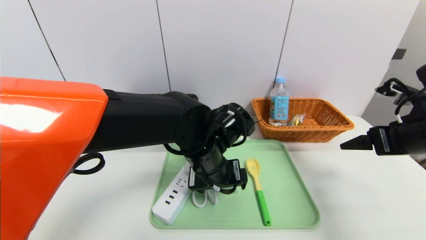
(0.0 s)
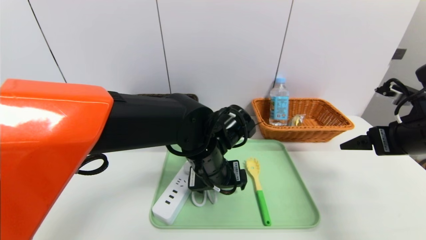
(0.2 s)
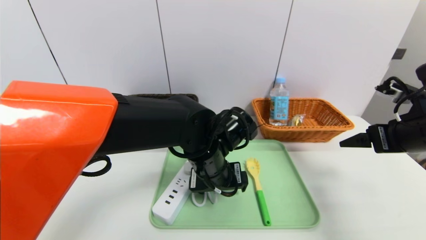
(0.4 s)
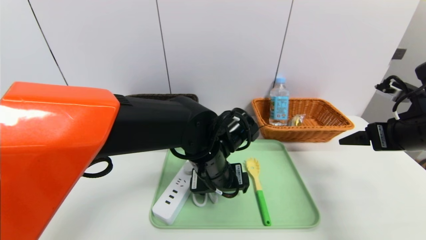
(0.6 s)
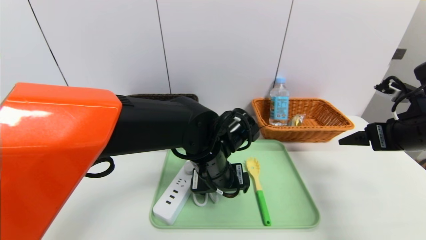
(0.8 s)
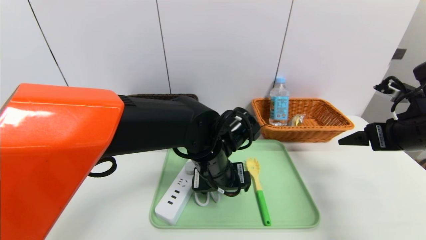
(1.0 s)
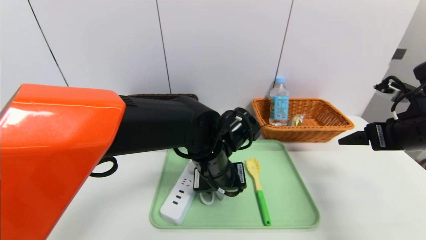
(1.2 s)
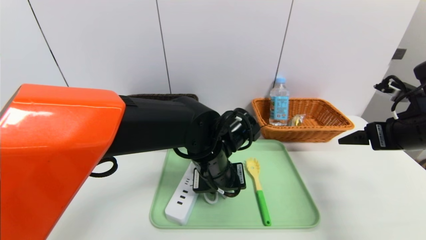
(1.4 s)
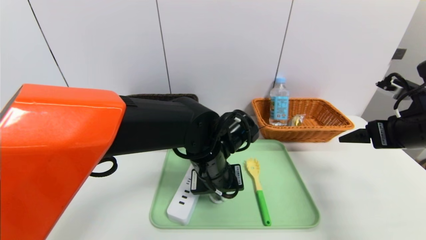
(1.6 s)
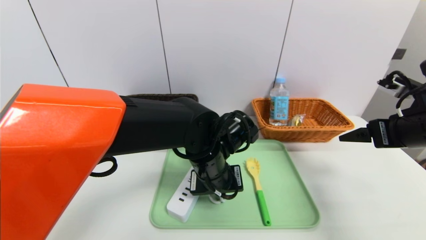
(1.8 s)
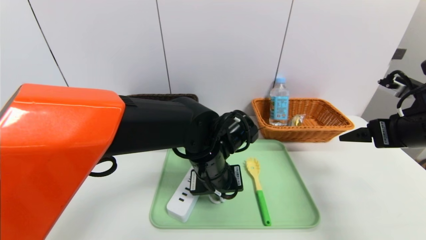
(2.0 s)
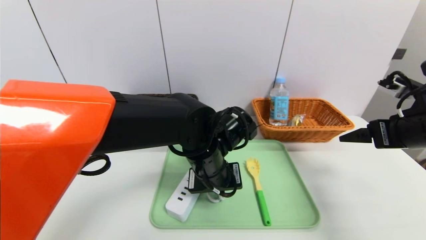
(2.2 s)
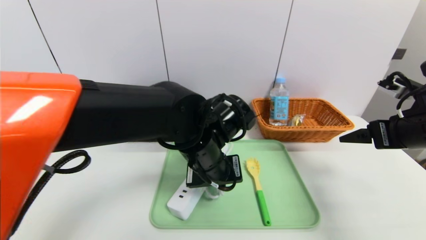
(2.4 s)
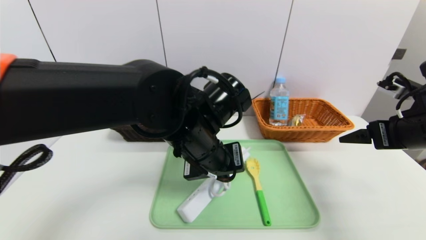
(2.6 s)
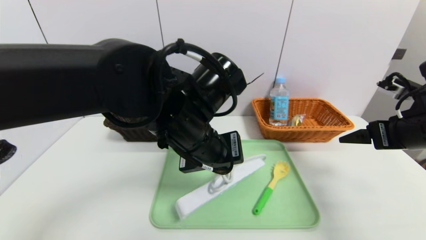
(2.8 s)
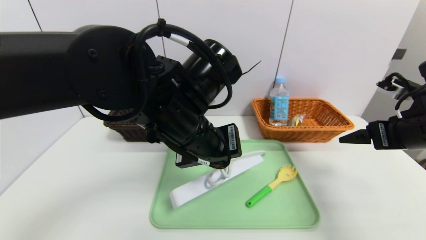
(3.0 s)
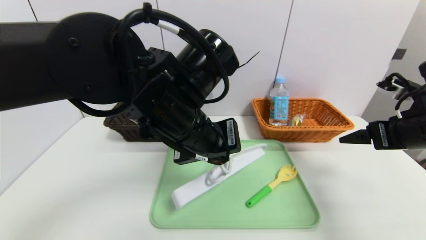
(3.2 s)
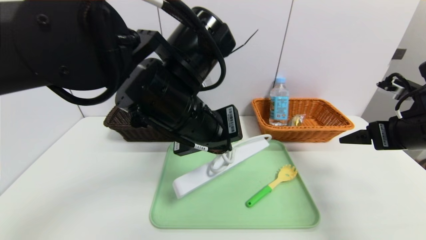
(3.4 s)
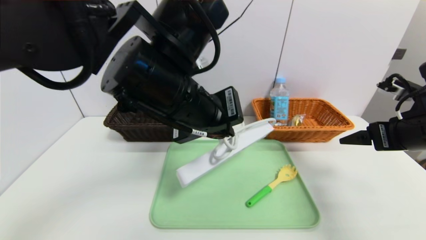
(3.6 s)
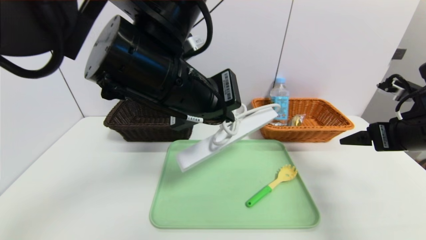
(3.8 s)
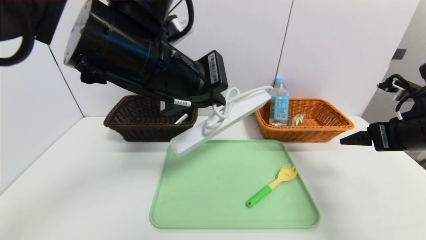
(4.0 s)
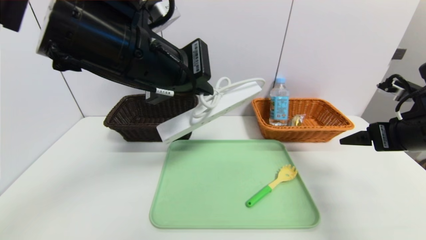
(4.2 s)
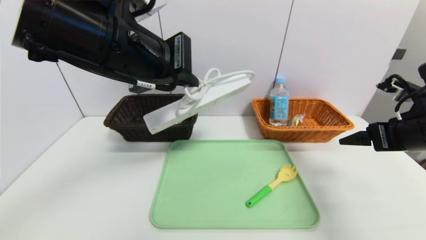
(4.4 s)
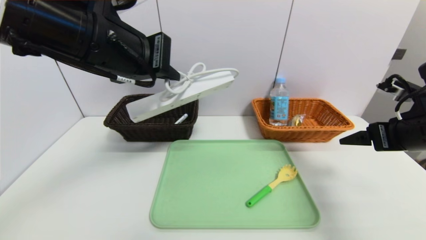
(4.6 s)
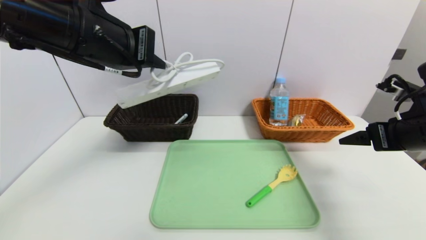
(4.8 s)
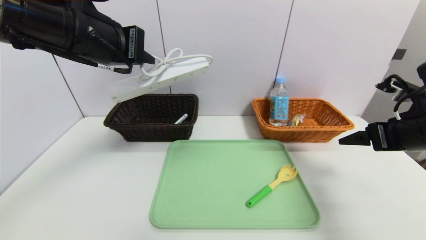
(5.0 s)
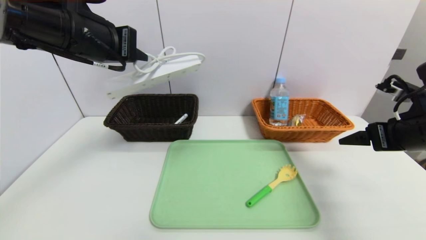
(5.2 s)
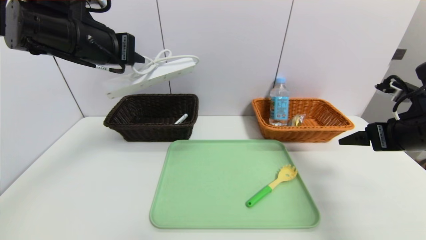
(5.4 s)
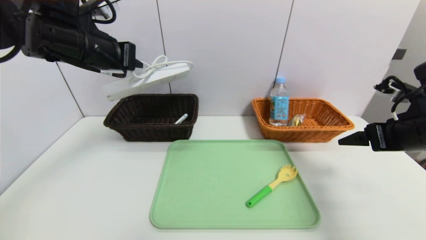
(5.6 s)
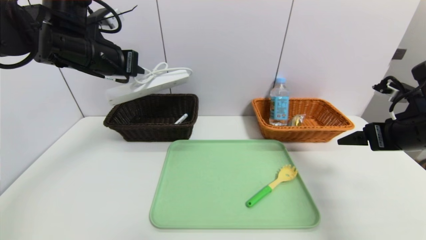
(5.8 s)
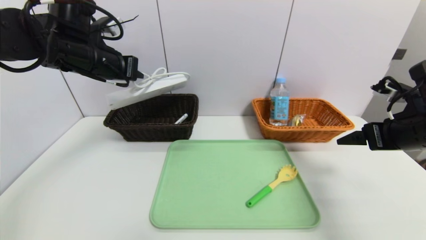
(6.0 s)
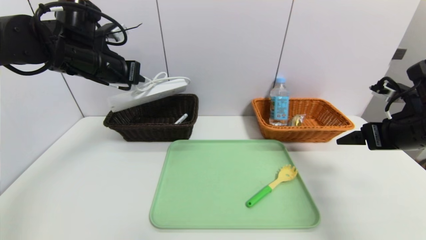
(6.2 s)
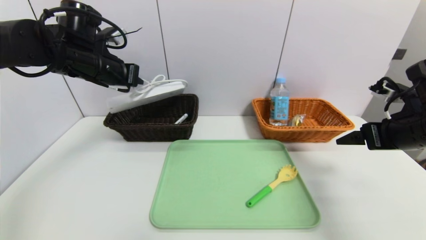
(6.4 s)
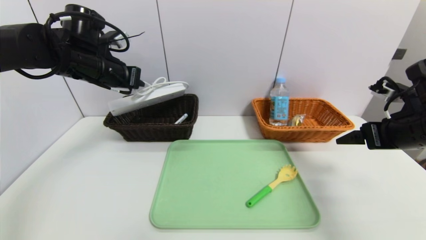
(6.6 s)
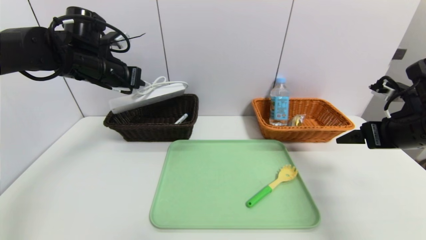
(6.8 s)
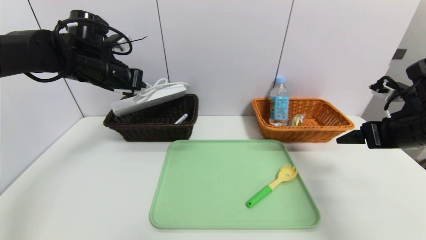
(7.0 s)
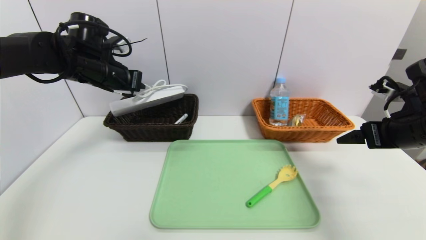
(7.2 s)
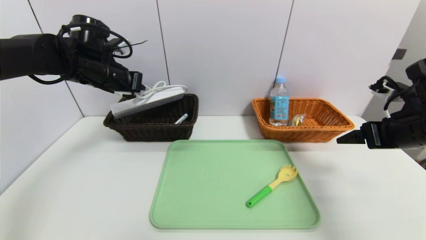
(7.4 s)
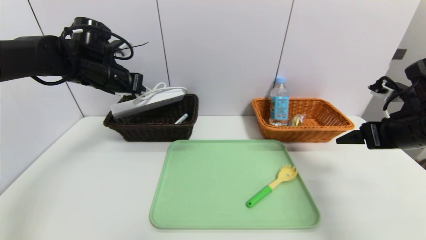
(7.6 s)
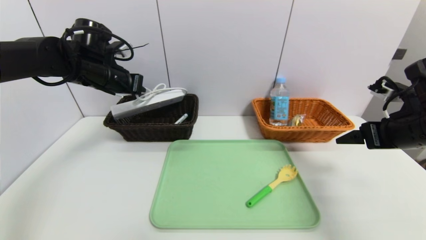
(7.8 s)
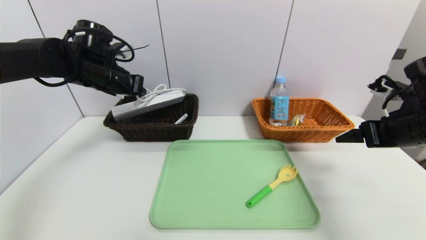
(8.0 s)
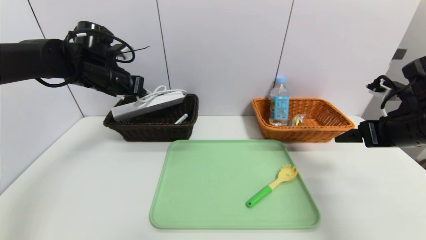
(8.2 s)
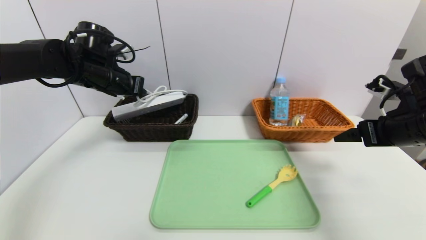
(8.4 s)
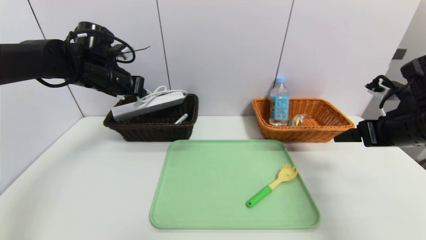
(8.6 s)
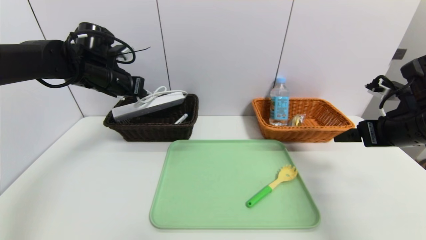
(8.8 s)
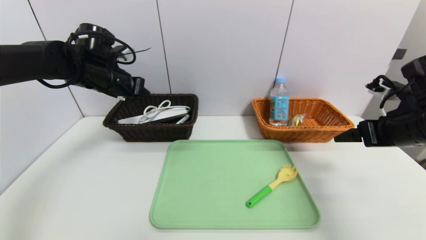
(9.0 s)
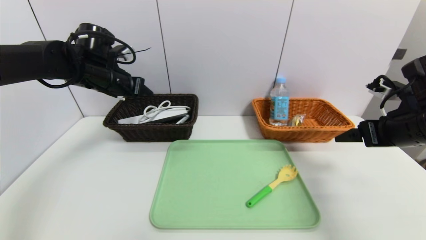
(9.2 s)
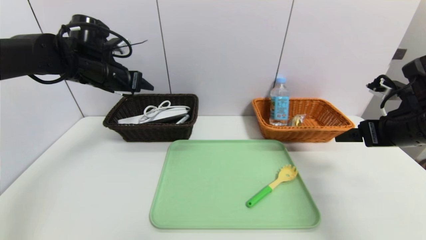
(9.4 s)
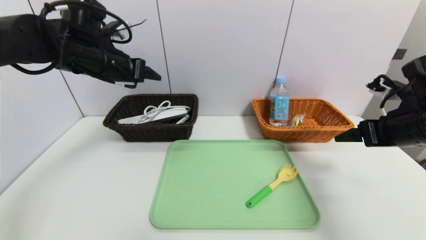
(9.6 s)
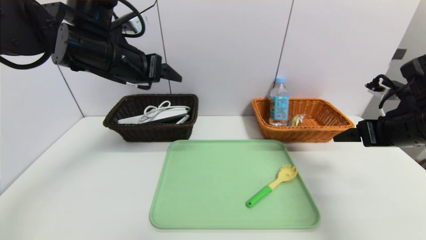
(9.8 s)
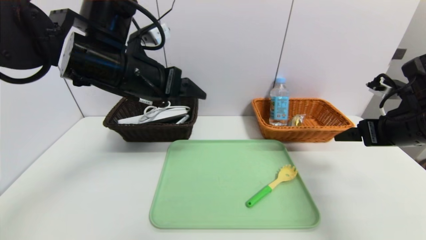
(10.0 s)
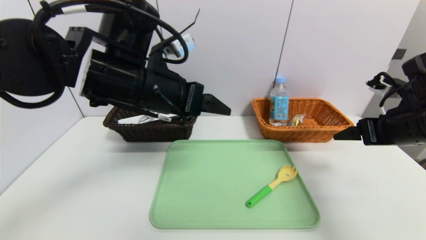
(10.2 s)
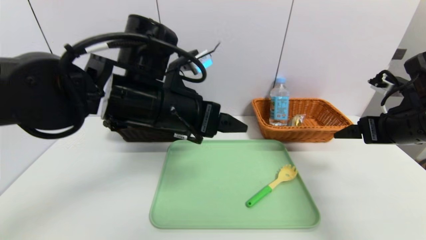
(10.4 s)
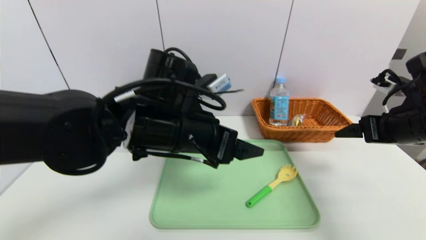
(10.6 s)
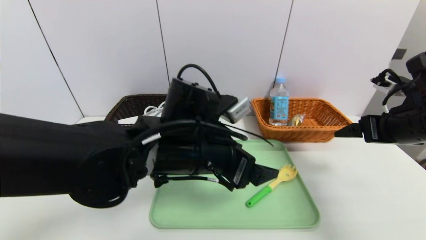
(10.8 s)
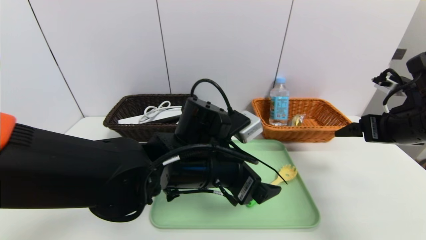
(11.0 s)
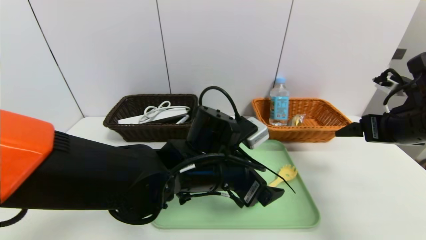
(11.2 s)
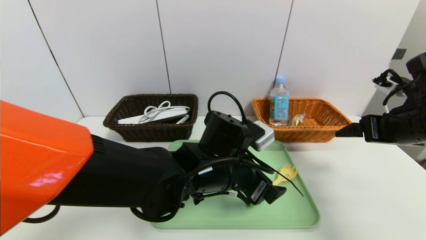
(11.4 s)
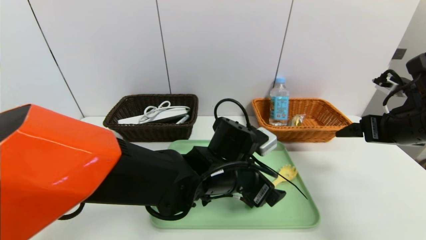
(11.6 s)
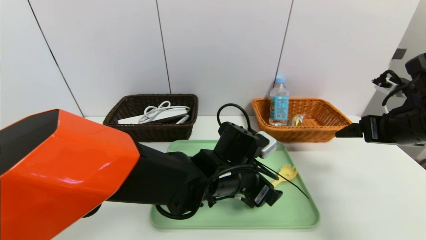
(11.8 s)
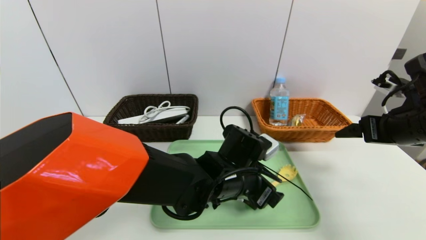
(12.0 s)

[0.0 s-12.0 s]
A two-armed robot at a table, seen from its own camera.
Task of the whole recording: place the food in the right basket with the right gripper, and place the non food items in the left basket with the left gripper.
Step, 0.0 to 9.6 s: Grasp the power strip and put it in the left basket.
0.0 to 1.6 s: The left gripper closes its fingers.
1.6 to 3.0 s: The left gripper travels upward by approximately 10 cm.
3.0 to 4.4 s: The left gripper heads upward and to the left, covering roughly 15 cm.
4.4 to 6.0 s: The left gripper goes some 15 cm forward and to the left.
6.0 to 7.6 s: The left gripper moves some 5 cm.
7.6 to 9.0 s: Neither gripper changes place.
9.0 to 10.4 s: The left gripper heads to the right and backward, covering some 20 cm, and opens.
10.4 to 12.0 s: The left gripper travels downward and to the right by roughly 20 cm.

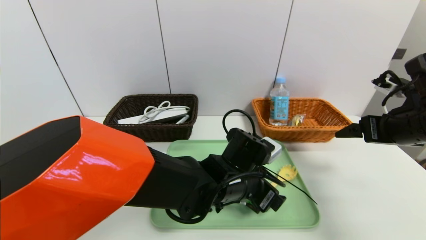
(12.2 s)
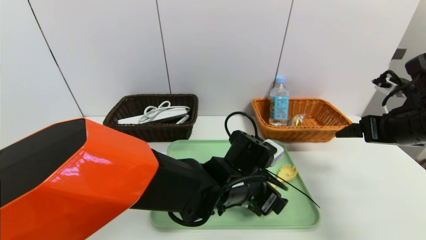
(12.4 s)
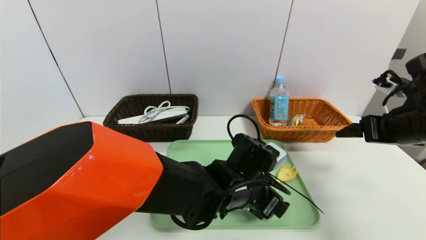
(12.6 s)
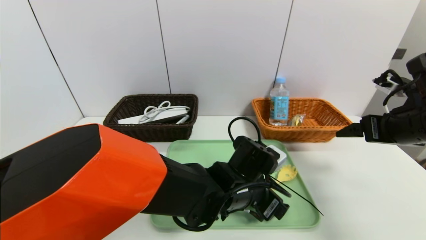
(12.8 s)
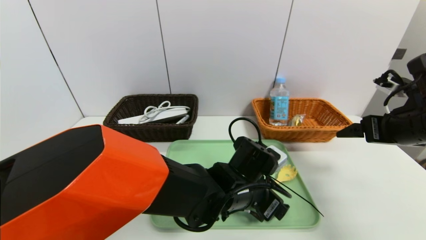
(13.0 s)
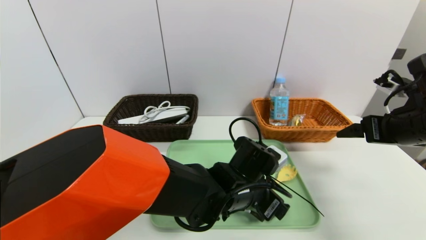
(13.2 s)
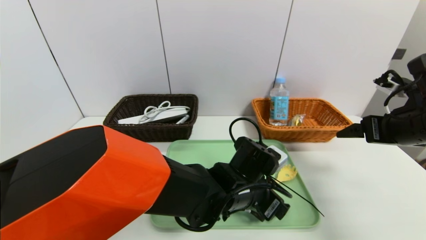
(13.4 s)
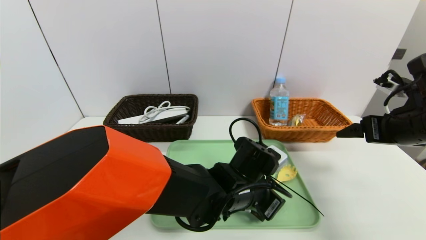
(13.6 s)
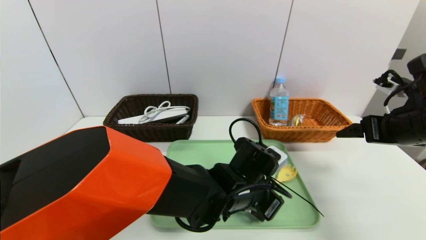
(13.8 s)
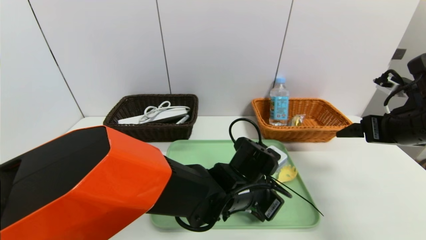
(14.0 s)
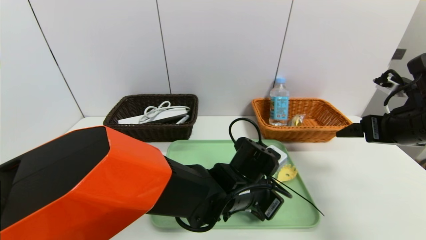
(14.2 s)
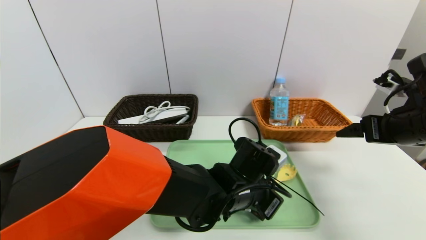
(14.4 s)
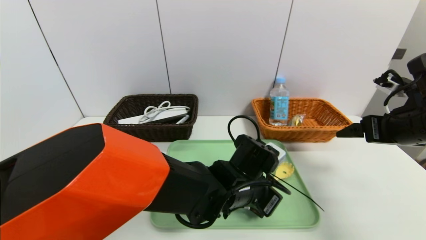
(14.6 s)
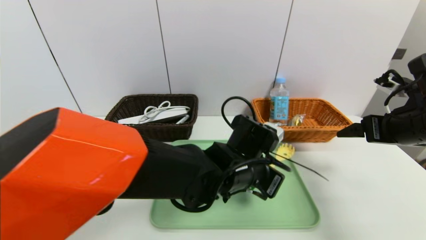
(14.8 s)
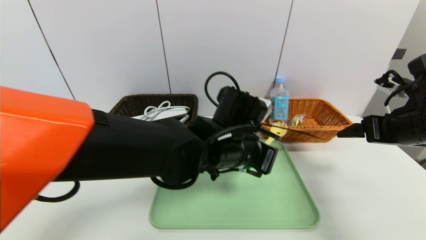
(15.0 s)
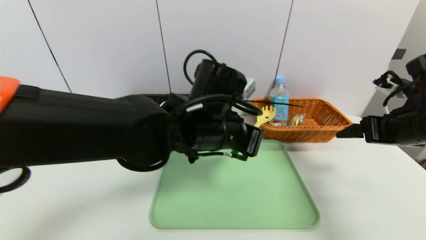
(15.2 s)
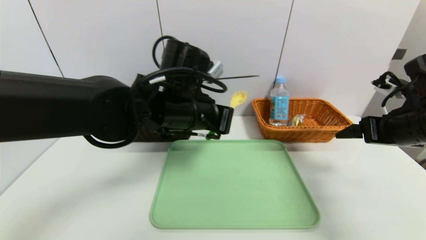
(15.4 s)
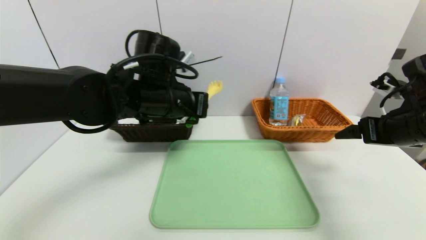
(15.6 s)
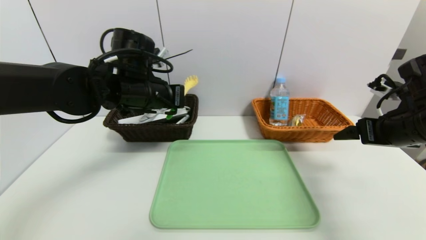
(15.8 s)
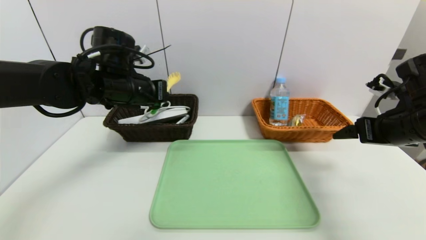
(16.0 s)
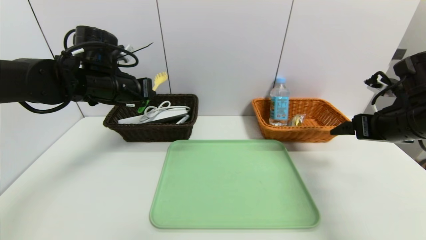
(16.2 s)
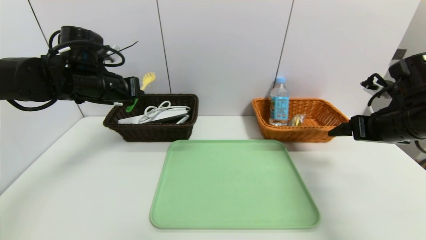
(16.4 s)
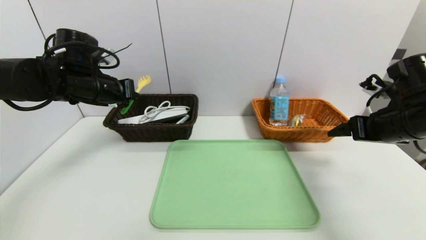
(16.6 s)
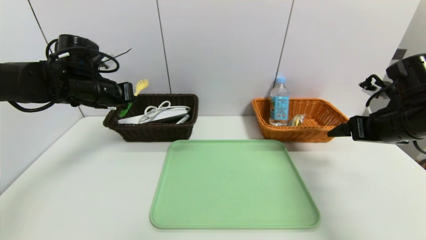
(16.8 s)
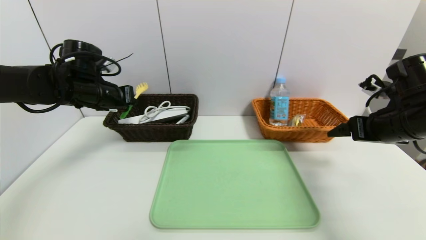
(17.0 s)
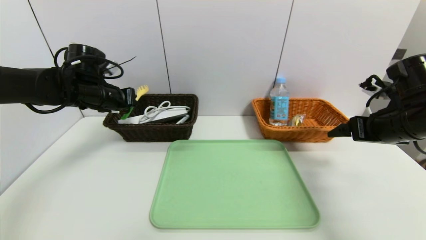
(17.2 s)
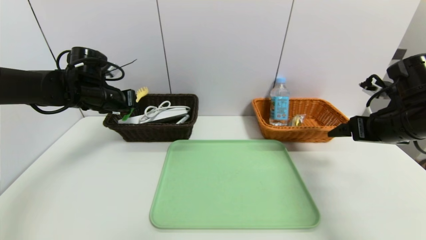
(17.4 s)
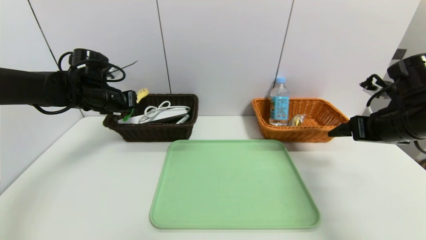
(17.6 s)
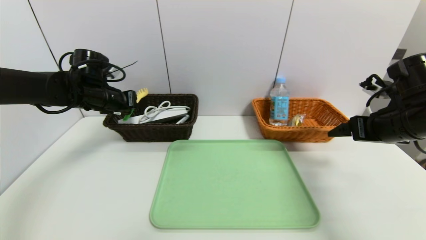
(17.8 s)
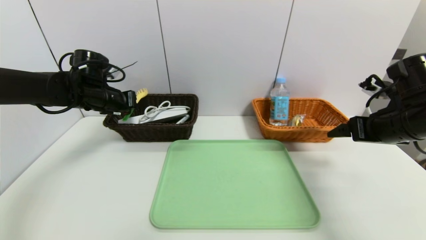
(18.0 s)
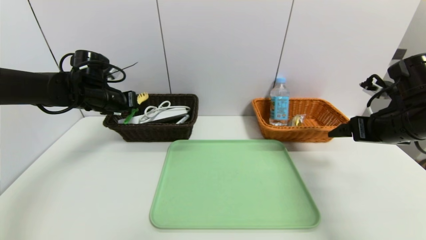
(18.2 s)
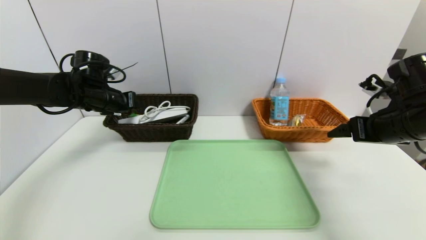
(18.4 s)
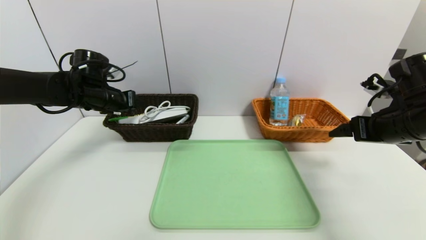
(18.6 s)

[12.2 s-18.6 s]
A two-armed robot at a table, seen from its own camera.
Task of the whole recording: place the food in the right basket with the right gripper, and place the non food items in the left basket with the left gripper.
Step, 12.2 to 18.6 s: Grasp the back scratcher and put it in the left basket.
12.2 to 13.8 s: The left gripper closes up.
13.8 to 15.4 s: The left gripper shifts approximately 20 cm upward and to the left, and closes its fingers.
15.4 to 17.0 s: The left gripper heads to the left and forward, covering some 25 cm.
17.0 to 18.6 s: The left gripper opens up.
